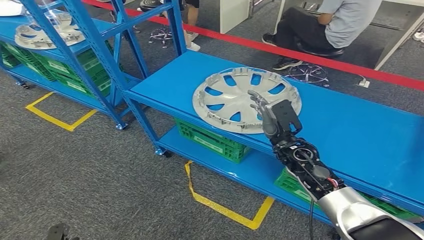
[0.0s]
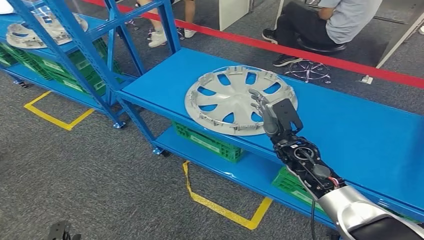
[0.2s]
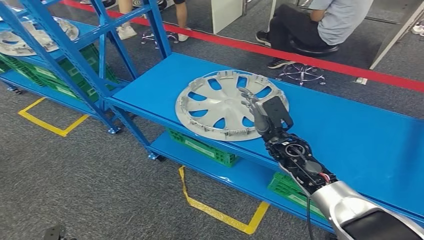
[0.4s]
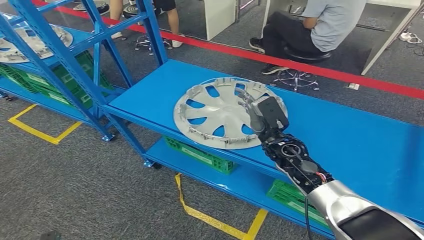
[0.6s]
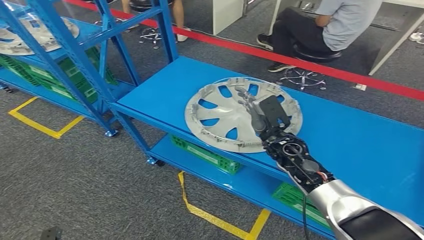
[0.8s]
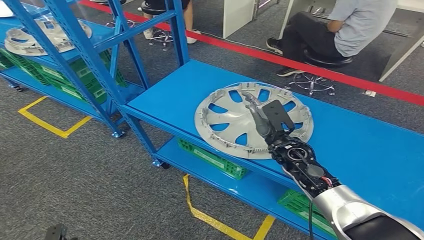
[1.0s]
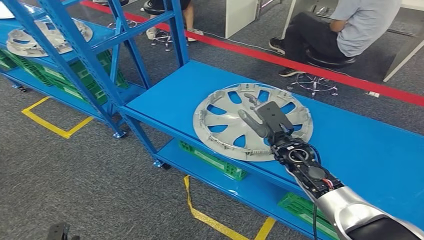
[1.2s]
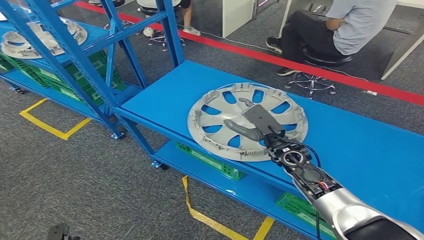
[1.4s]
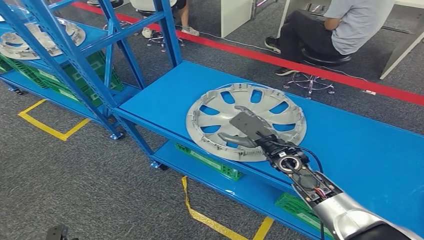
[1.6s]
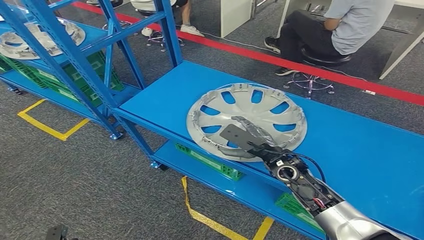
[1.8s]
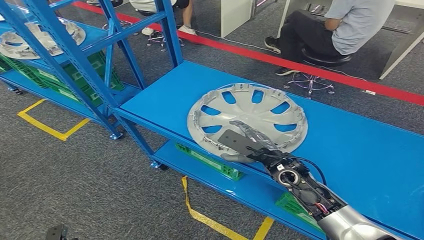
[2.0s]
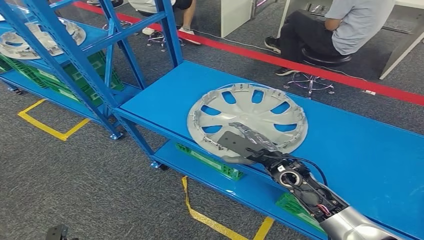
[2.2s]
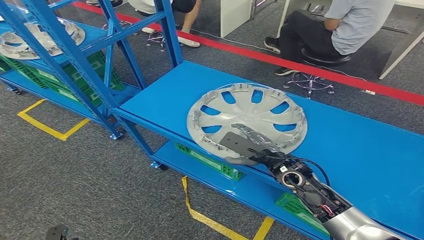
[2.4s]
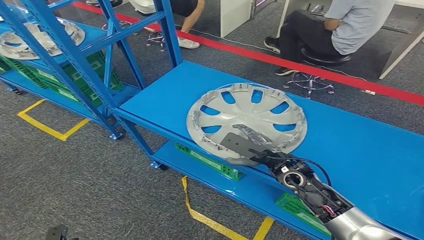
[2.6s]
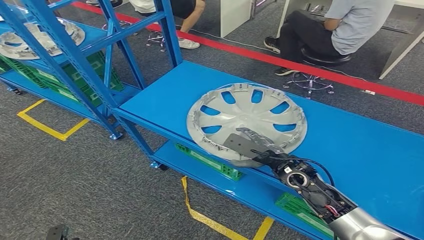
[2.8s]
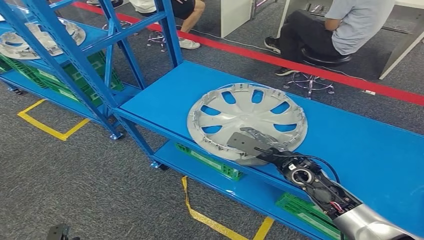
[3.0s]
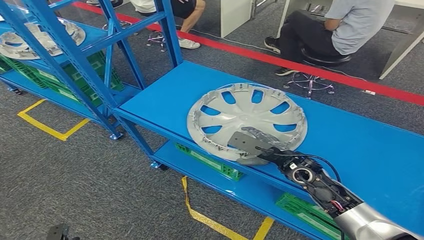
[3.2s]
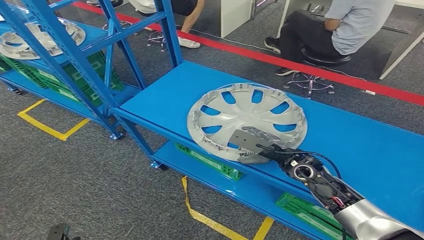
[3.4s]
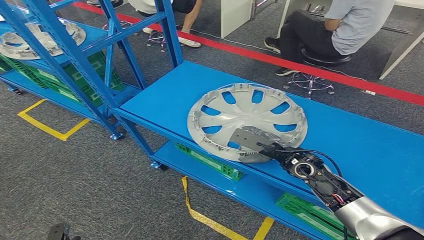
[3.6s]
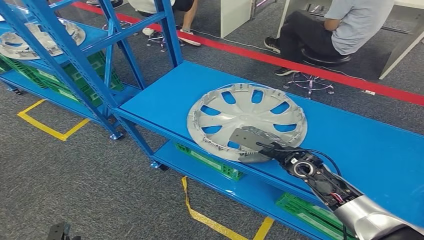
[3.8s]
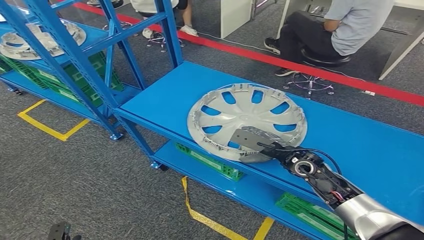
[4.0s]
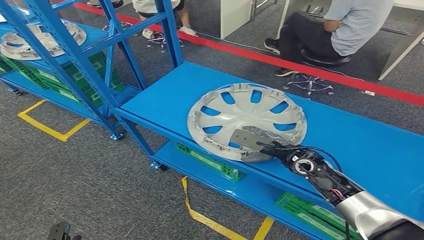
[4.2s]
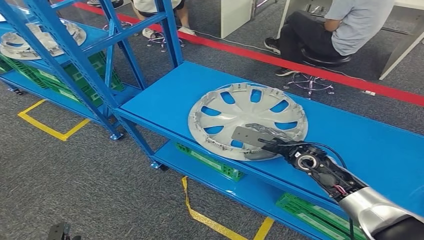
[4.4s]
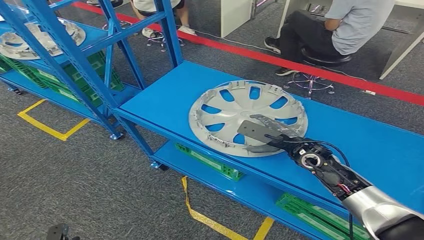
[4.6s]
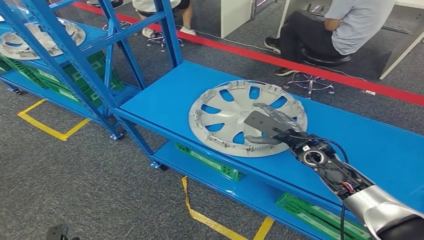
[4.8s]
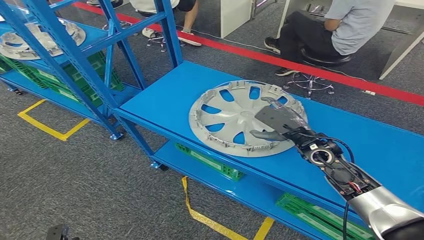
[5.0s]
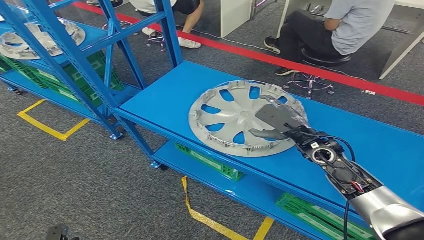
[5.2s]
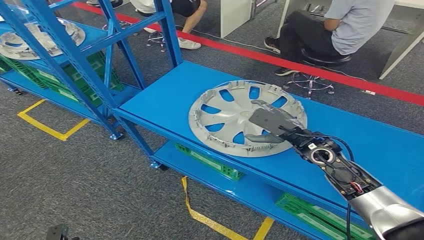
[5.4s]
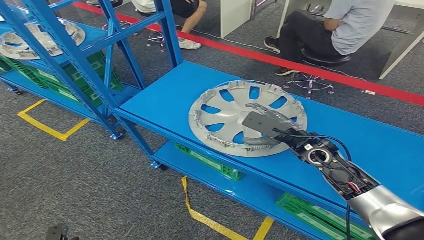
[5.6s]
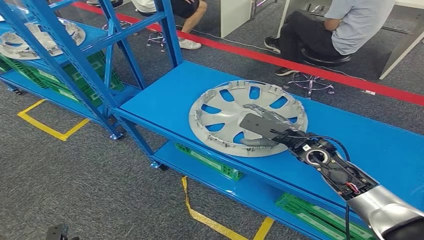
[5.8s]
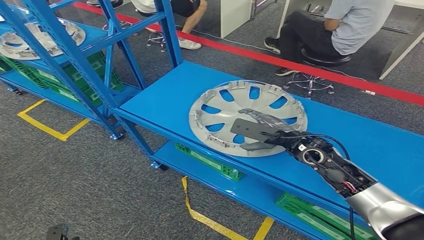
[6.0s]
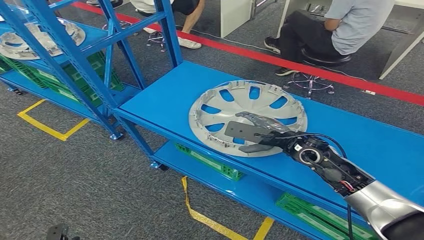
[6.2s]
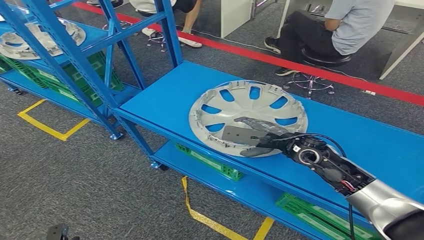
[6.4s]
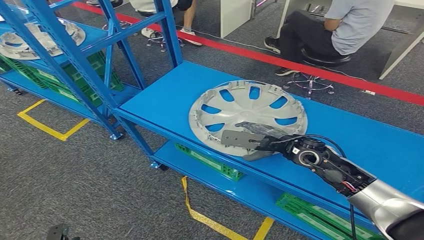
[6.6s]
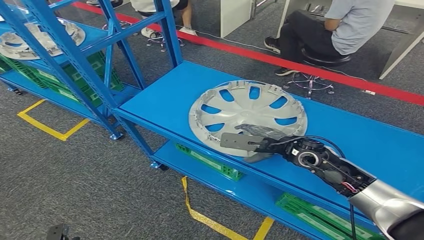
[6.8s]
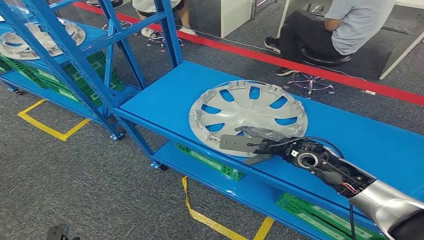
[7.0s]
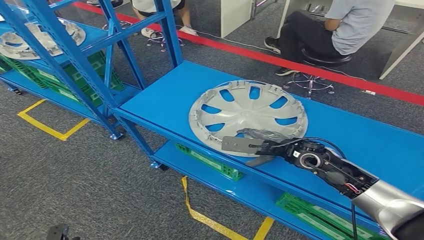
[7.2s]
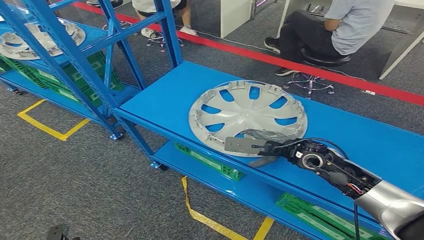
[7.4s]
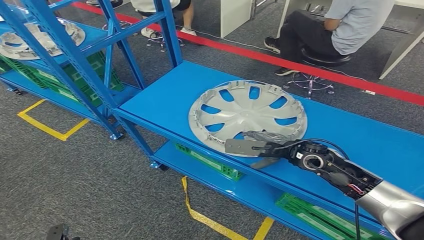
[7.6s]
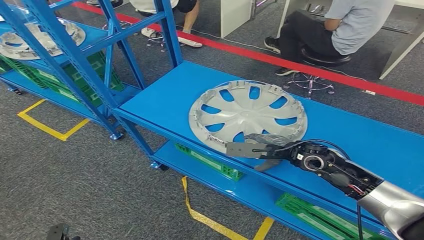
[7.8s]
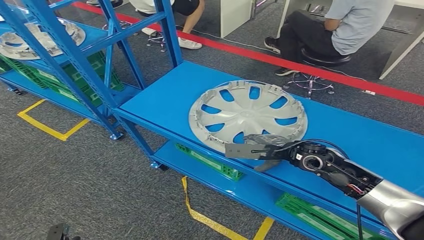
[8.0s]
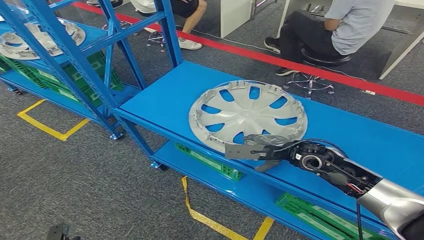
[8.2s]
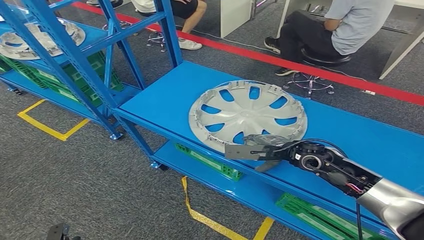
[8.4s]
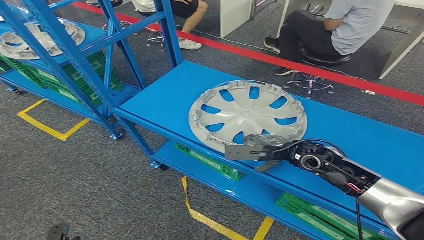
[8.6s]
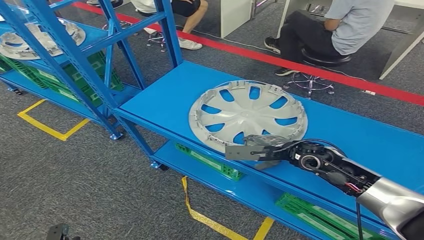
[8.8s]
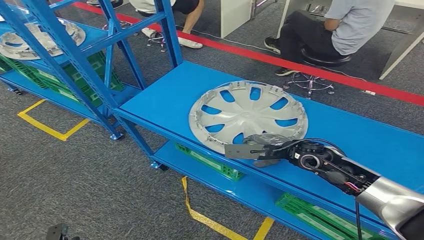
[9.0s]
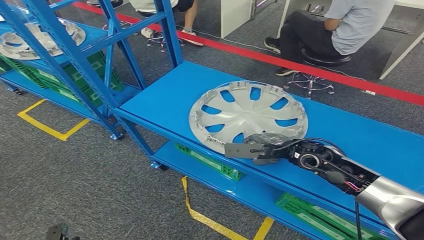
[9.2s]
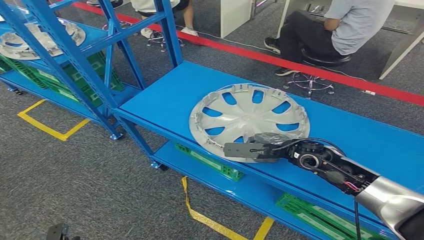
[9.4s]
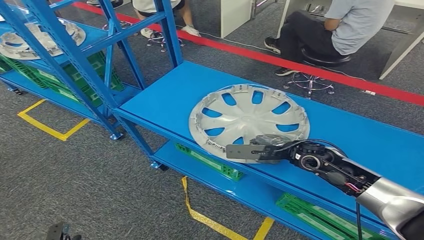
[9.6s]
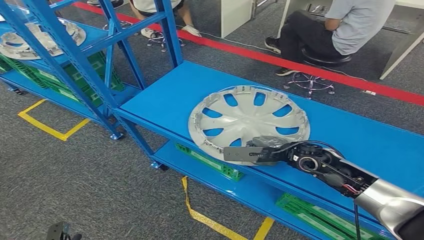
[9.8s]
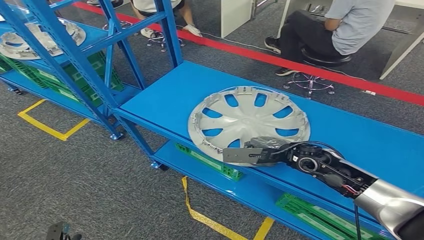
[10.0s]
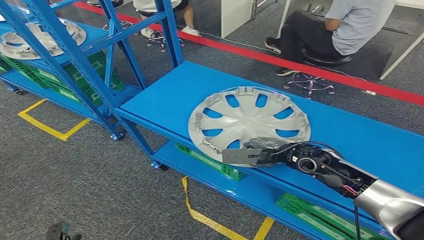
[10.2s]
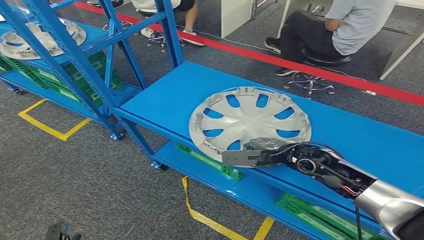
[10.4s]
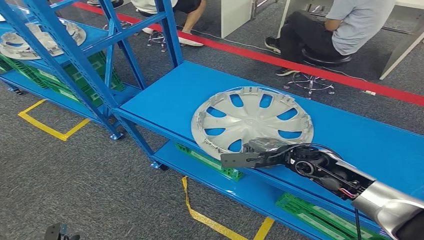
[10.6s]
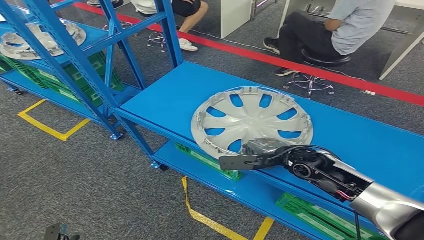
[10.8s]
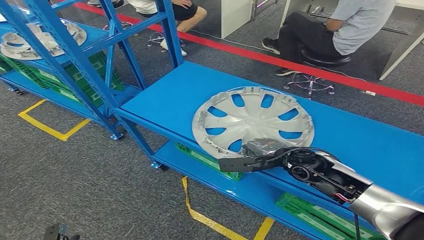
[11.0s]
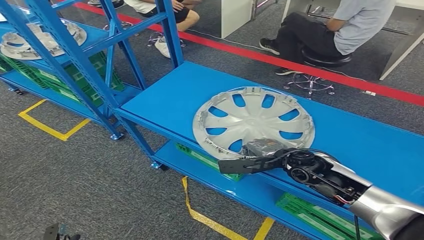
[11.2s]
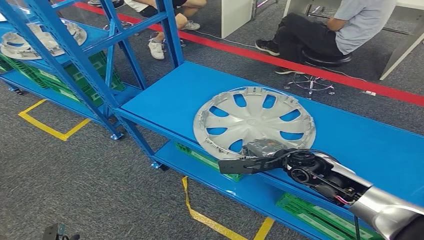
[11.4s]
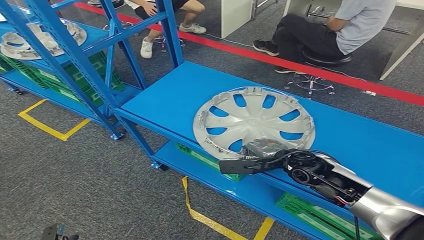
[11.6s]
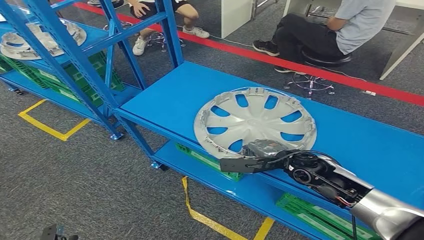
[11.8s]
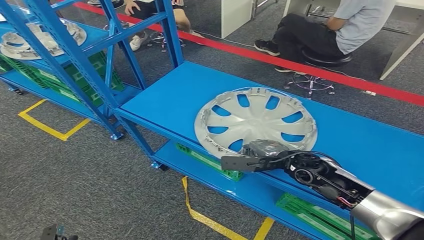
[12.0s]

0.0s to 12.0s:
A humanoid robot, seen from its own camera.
3.0s to 4.4s: There are only small adjustments of the hands.
7.6s to 9.0s: There are only small adjustments of the hands.
9.0s to 10.4s: The two hands keep their place.
10.4s to 12.0s: The hands move only a little.

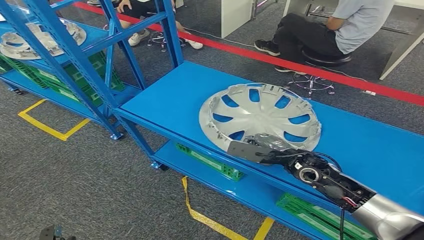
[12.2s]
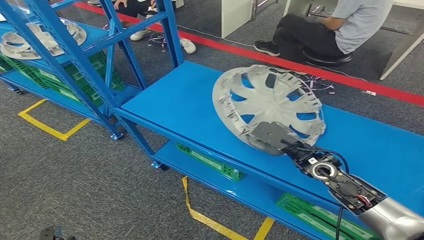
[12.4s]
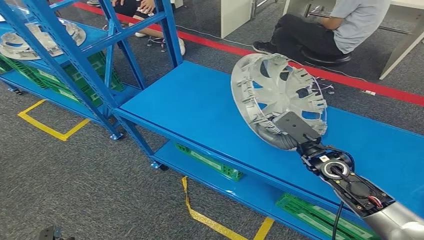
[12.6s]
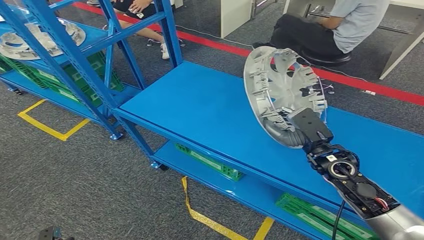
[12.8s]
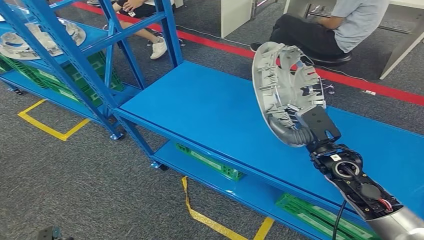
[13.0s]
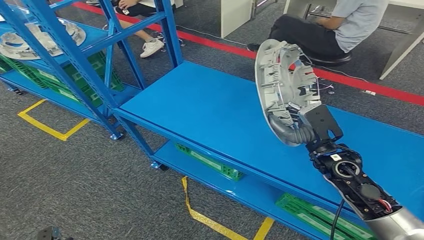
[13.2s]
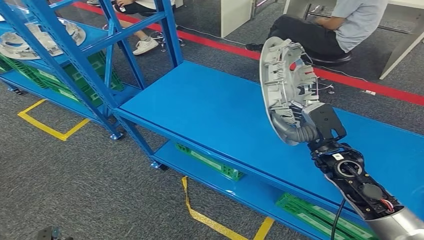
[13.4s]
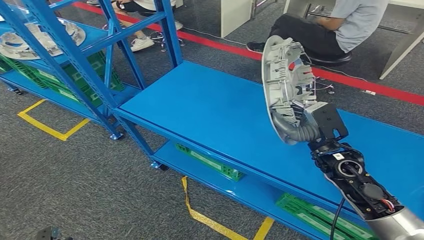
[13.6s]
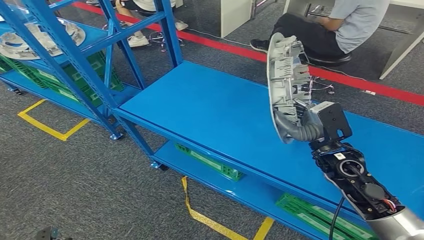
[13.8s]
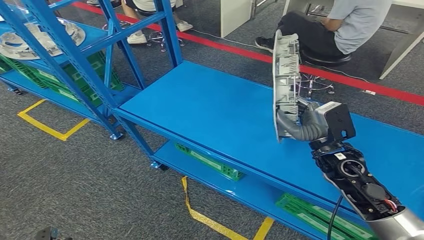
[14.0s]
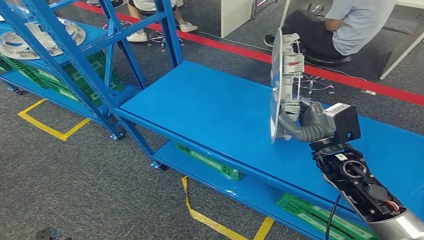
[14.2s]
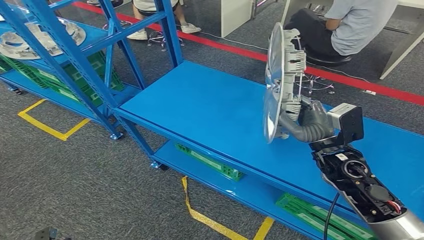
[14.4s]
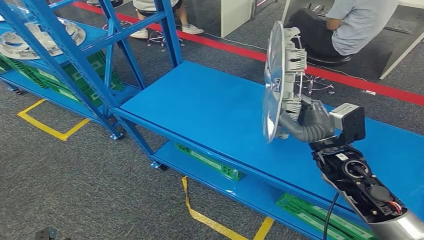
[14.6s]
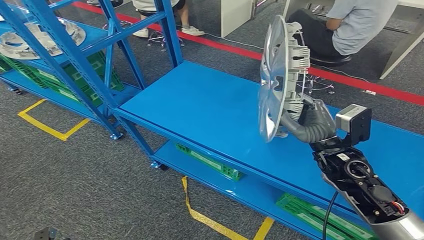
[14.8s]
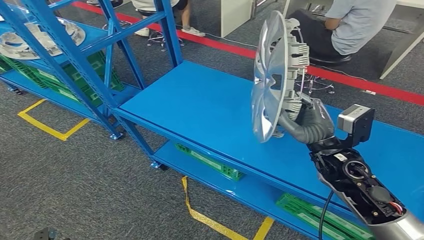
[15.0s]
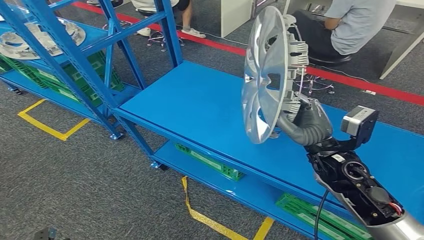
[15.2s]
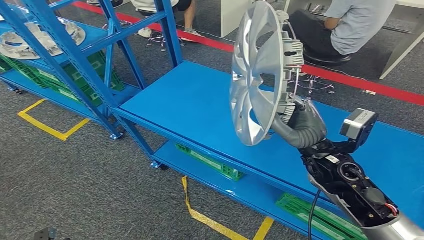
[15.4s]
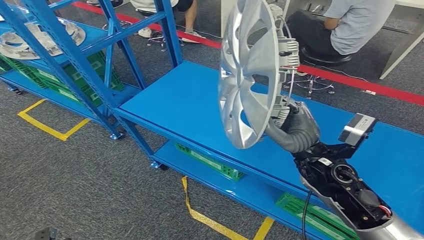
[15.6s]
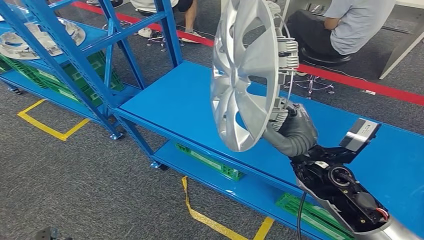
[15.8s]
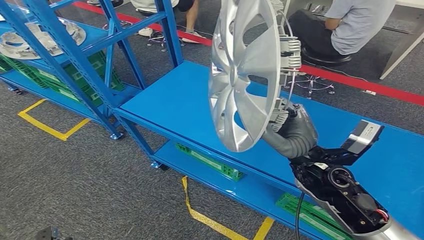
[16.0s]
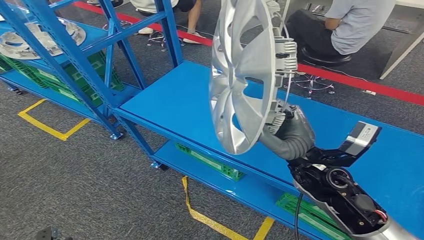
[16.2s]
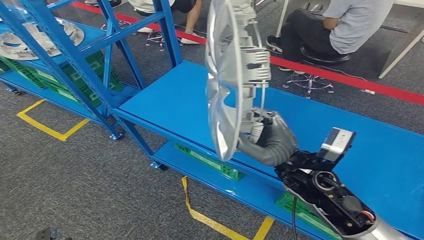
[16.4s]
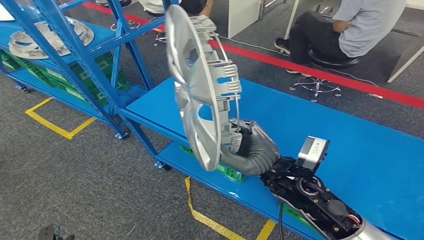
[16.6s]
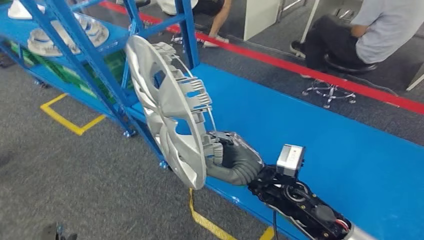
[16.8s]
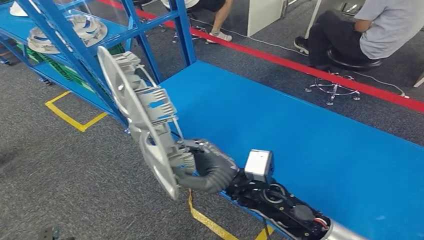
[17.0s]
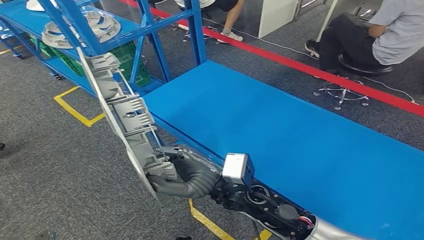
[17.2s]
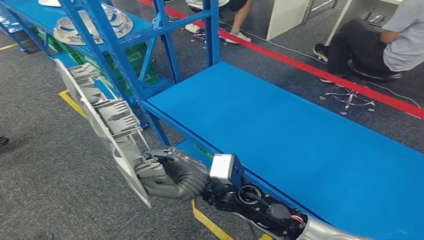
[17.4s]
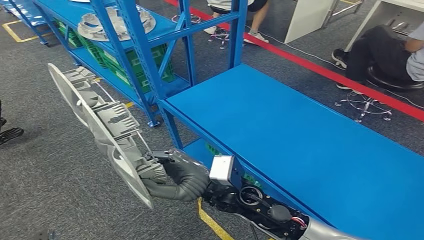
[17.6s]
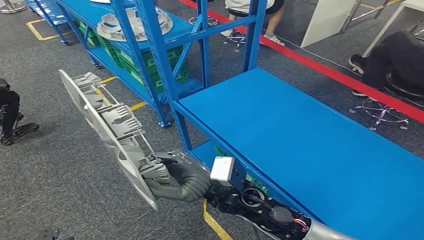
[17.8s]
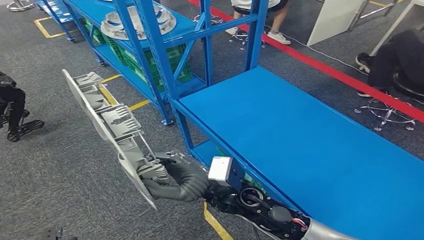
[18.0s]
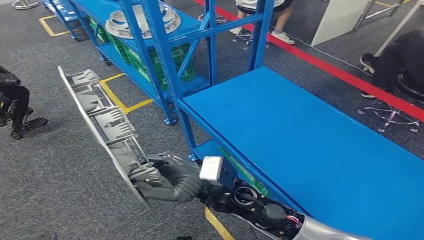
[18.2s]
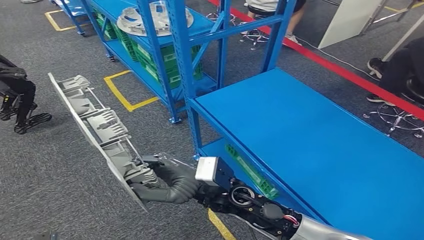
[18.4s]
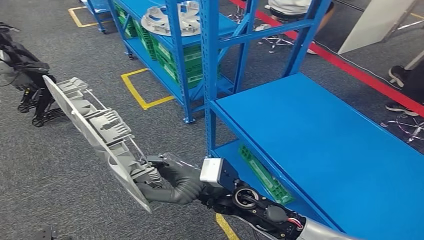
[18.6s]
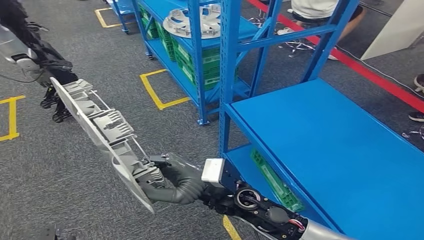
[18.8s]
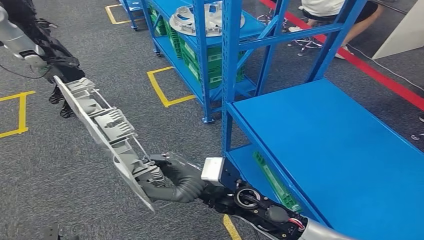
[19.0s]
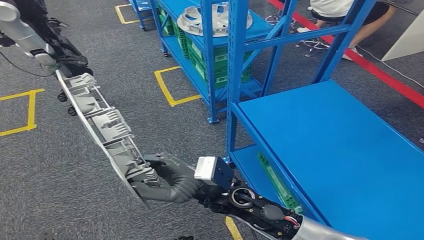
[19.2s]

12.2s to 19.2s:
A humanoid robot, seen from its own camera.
Step, 12.2s to 15.2s: Pick up the small component from the shelf.
12.2s to 13.6s: The right hand goes approximately 5 cm upward.
